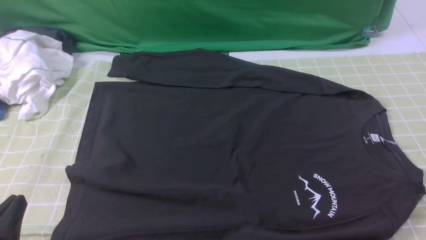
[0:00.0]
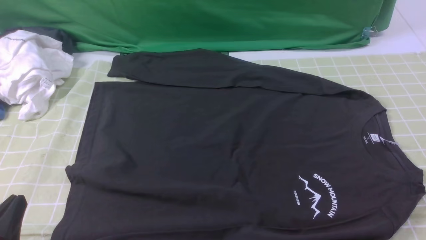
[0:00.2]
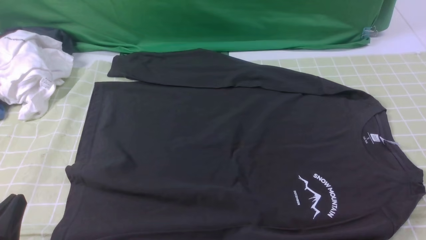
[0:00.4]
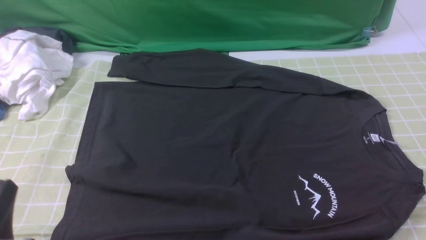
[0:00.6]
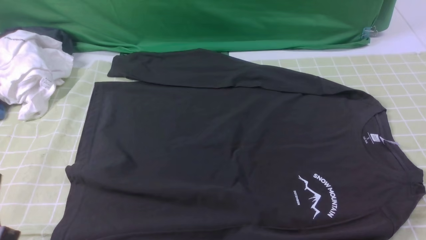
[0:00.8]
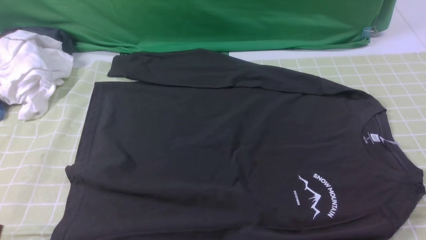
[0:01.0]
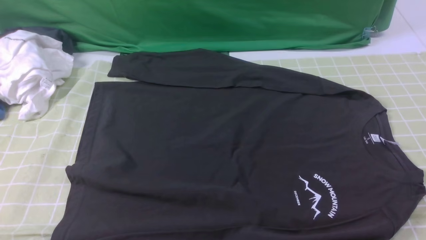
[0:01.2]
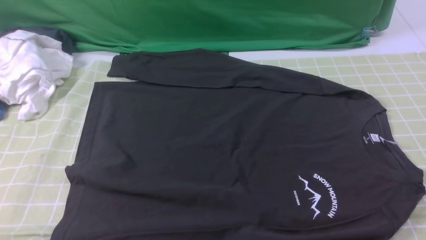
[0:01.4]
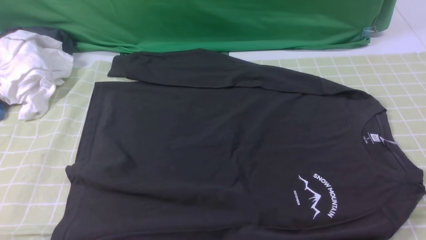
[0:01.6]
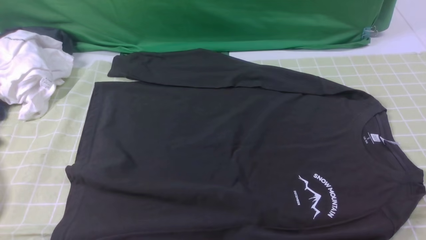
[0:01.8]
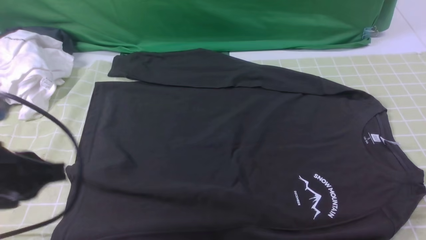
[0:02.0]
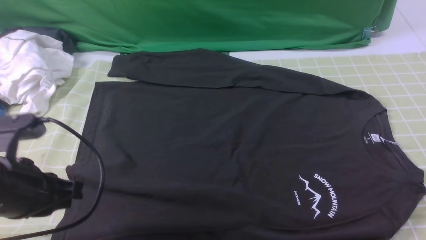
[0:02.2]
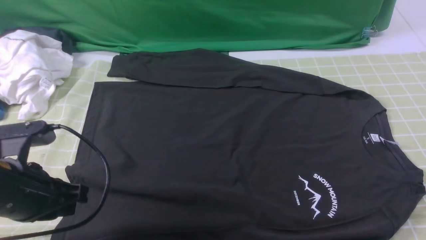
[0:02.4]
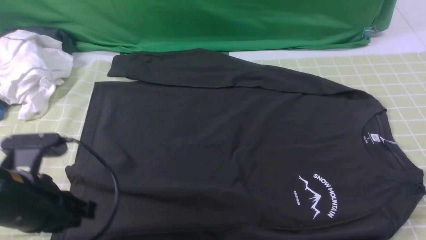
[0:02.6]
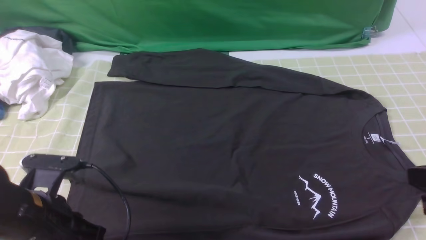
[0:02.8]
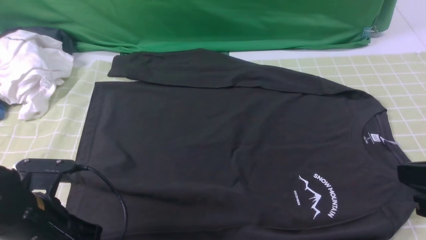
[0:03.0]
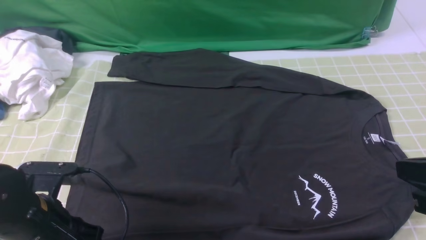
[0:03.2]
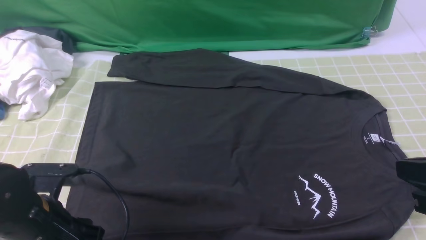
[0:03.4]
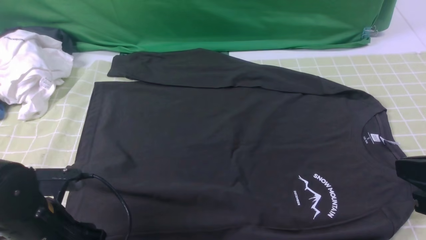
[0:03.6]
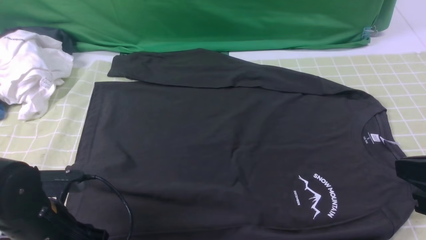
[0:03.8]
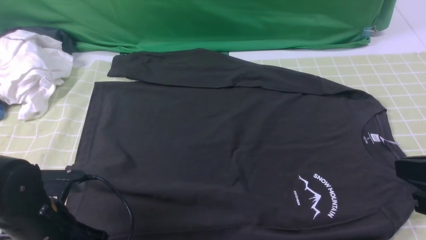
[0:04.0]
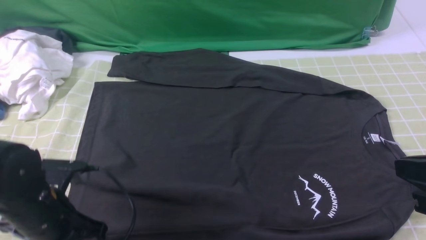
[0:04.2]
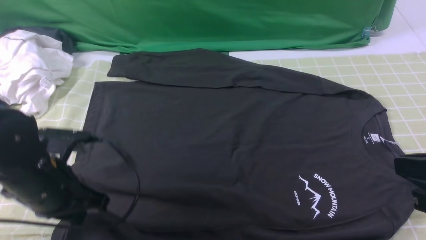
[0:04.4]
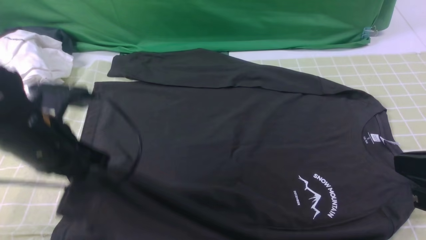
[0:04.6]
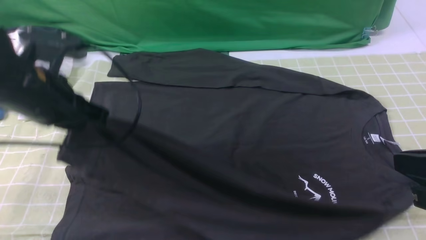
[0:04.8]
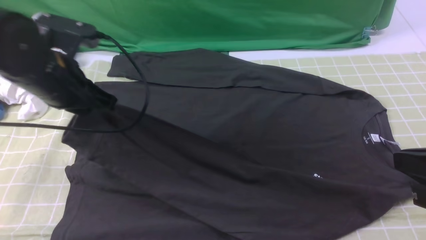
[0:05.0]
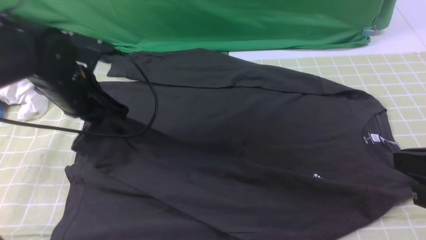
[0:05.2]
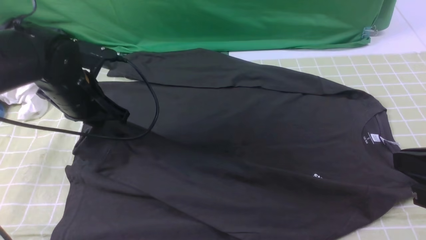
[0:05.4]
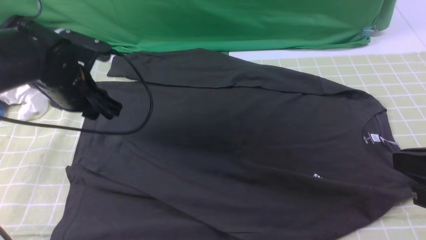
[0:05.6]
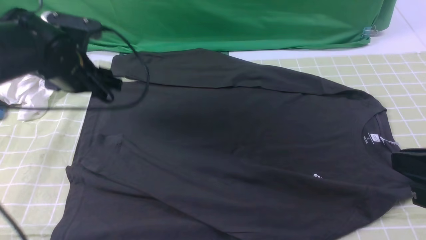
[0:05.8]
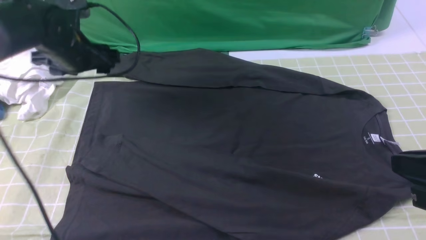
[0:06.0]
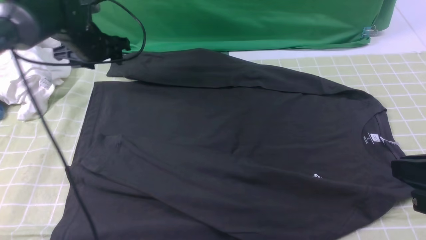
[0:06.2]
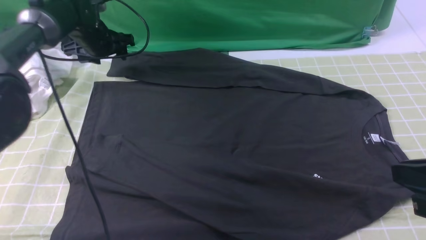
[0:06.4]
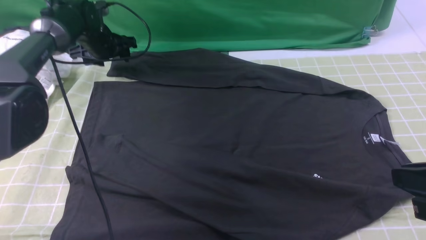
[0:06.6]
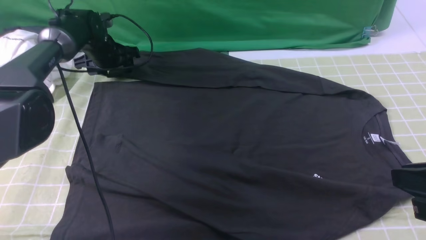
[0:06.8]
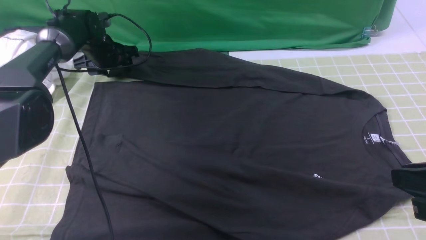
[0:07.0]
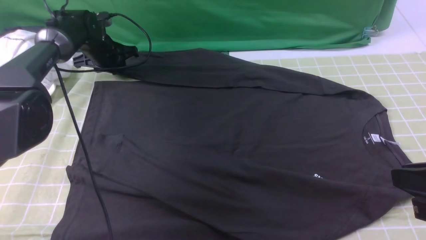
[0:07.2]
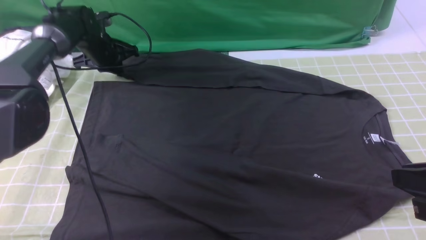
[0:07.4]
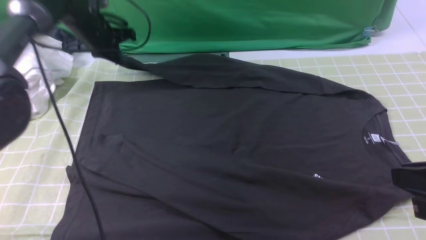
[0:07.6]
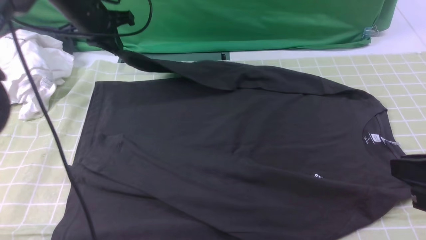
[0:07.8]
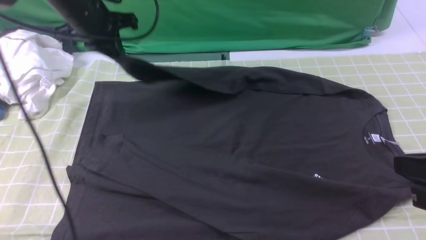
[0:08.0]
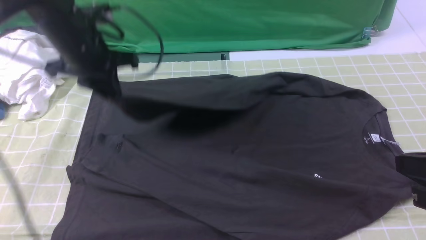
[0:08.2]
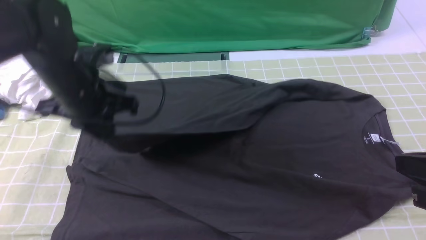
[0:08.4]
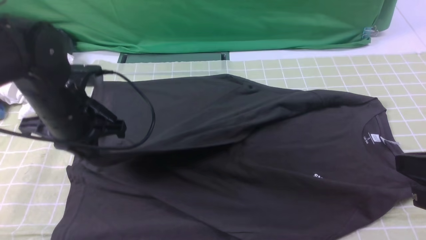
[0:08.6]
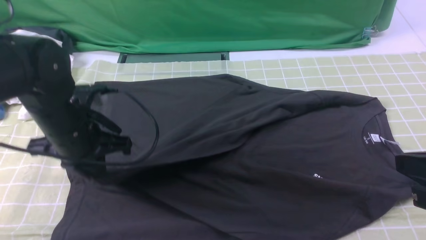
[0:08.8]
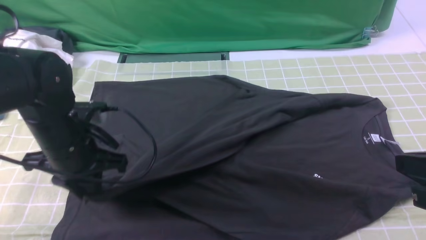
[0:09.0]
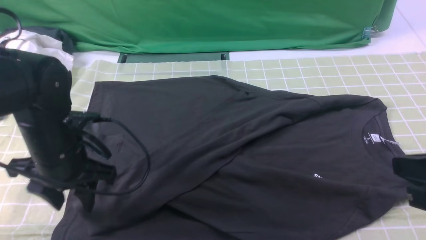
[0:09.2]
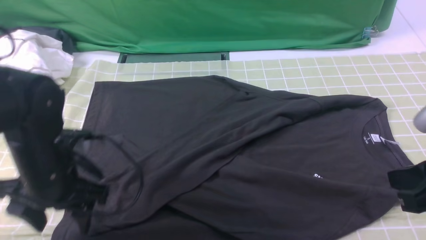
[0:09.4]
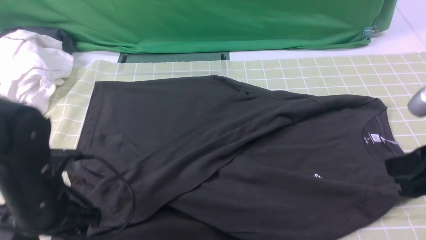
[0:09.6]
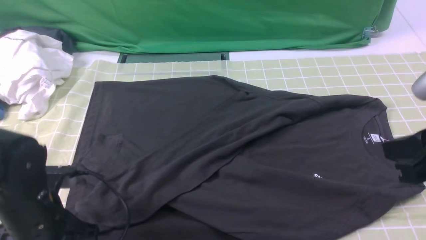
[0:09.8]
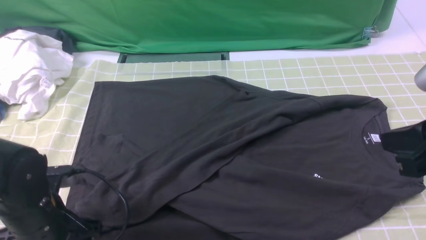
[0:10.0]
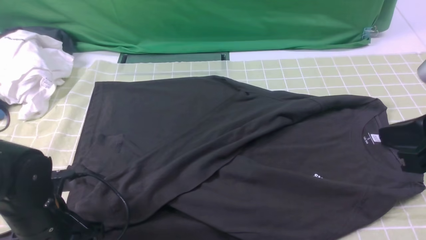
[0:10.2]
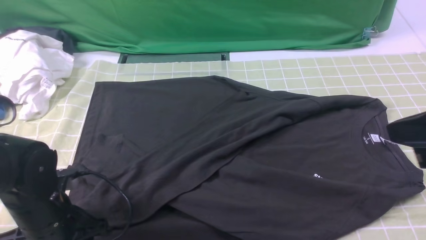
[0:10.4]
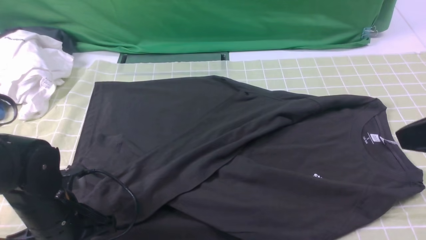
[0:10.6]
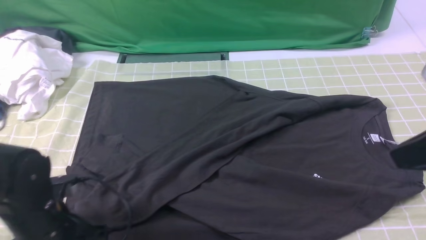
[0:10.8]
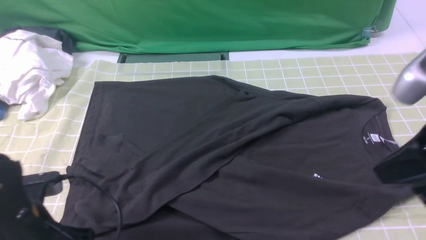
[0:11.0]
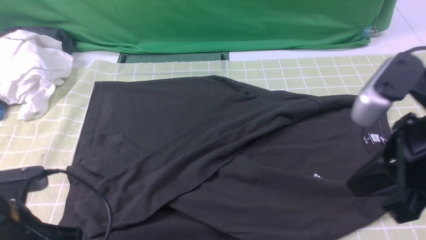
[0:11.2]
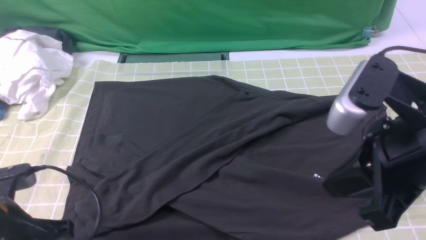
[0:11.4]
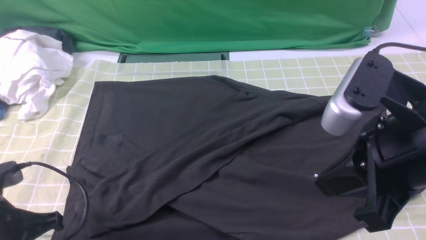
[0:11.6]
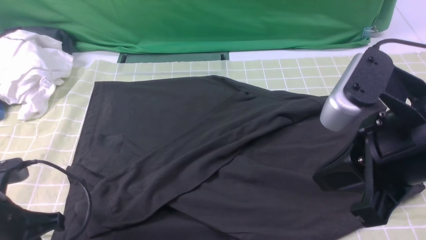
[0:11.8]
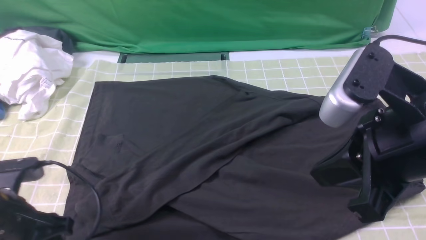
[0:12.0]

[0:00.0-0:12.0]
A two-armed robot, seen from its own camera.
Step, 0:00.0 to 0:04.0: use the left arm to clamp the cuff closest to it.
Step, 0:04.2 to 0:05.6: use the left arm to drag and place the cuff at the centered position on the left edge of the fabric.
Step, 0:05.8 to 0:07.2: use the left arm to clamp the cuff farthest from it.
Step, 0:07.4 to 0:09.2: use the left arm to drag and drop the cuff onto the cuff closest to the left arm.
0:00.0 to 0:01.6: The left gripper travels upward by some 15 cm.
0:01.6 to 0:03.0: The left gripper shifts some 20 cm downward and forward; the right gripper shifts about 10 cm upward, forward and to the left, and closes its fingers.
0:03.0 to 0:04.4: The left gripper moves forward, approximately 5 cm, and opens and closes again.
0:04.4 to 0:06.0: The left gripper is displaced forward by about 20 cm, and opens its fingers.
0:06.0 to 0:07.6: The left gripper heads forward, covering roughly 10 cm, and closes its fingers.
0:07.6 to 0:09.0: The left gripper shifts about 25 cm backward.
0:09.0 to 0:10.4: The right gripper is displaced upward by some 5 cm. Meanwhile the left gripper shifts roughly 10 cm backward and downward.
0:10.4 to 0:12.0: The left gripper ends up some 5 cm from where it was, and closes and opens again, while the right gripper travels to the left by about 5 cm.

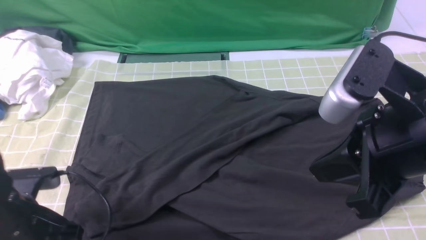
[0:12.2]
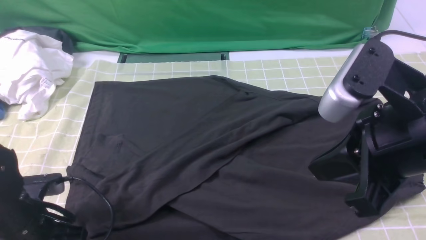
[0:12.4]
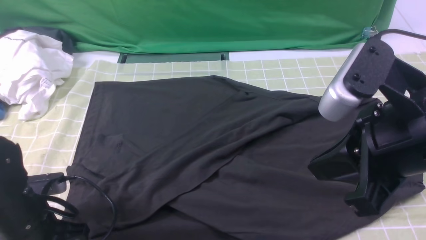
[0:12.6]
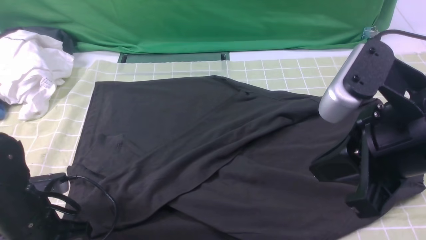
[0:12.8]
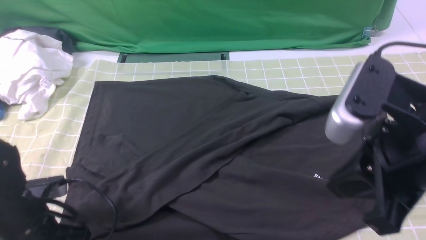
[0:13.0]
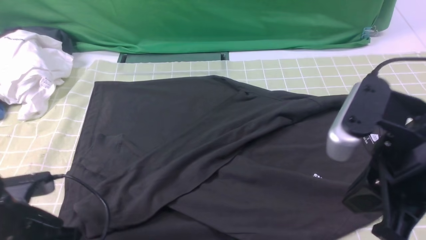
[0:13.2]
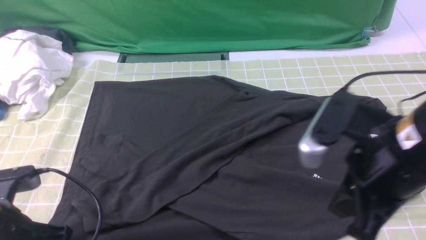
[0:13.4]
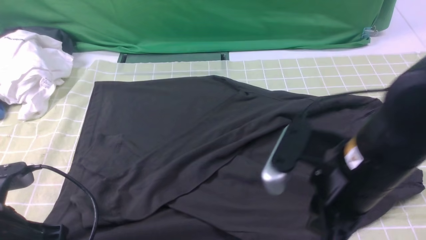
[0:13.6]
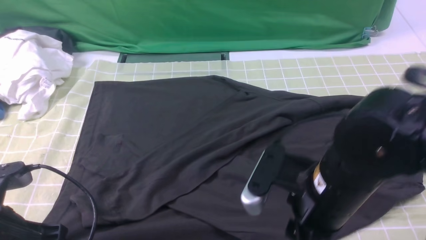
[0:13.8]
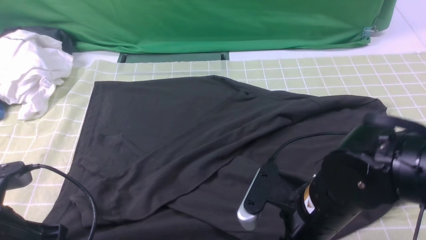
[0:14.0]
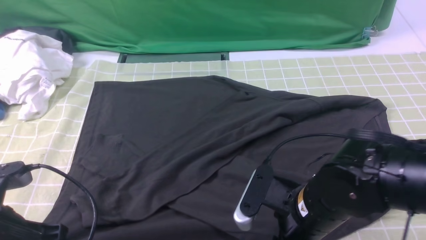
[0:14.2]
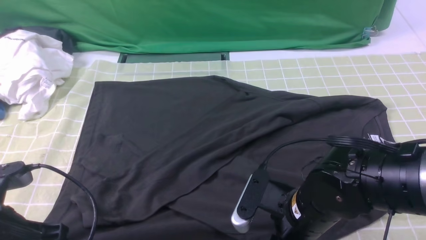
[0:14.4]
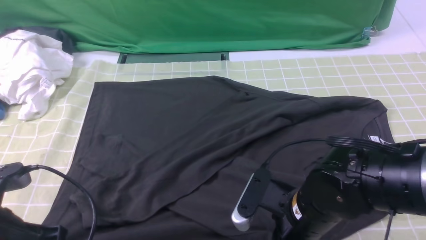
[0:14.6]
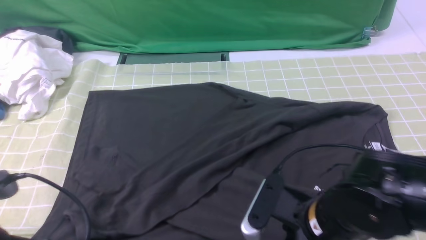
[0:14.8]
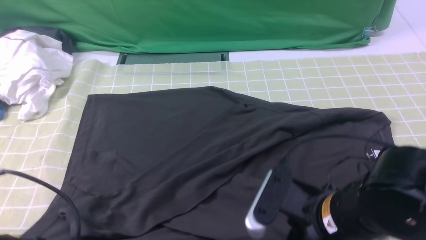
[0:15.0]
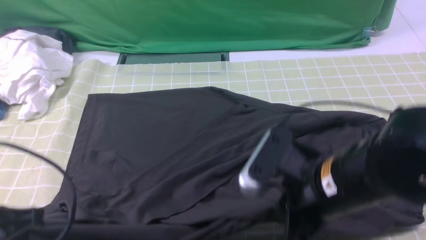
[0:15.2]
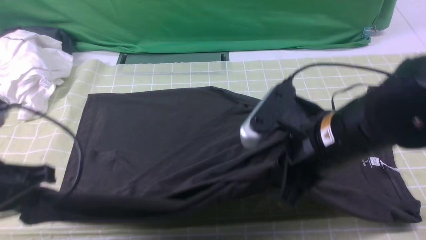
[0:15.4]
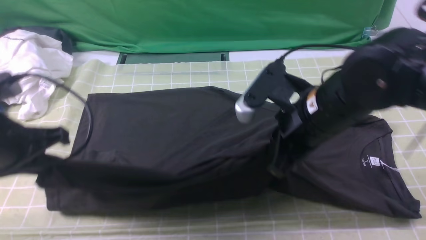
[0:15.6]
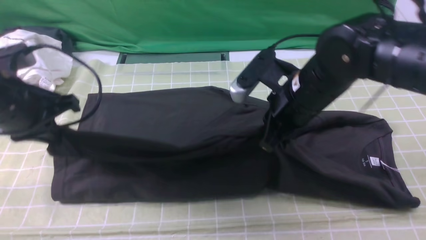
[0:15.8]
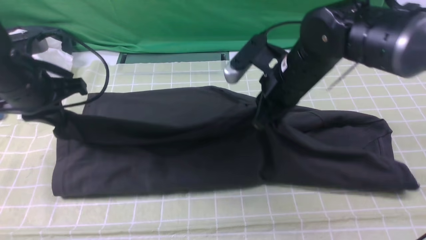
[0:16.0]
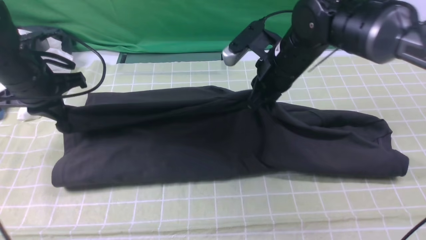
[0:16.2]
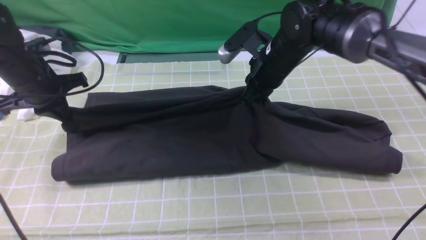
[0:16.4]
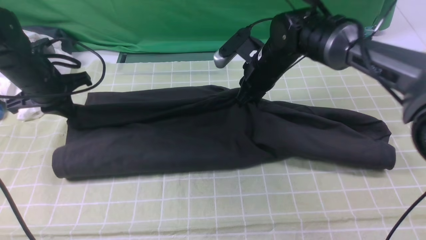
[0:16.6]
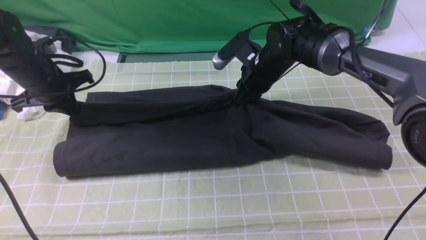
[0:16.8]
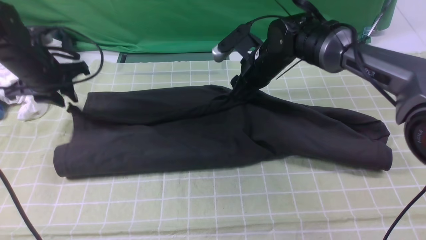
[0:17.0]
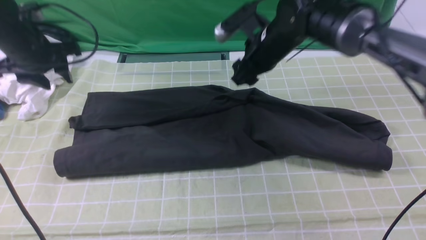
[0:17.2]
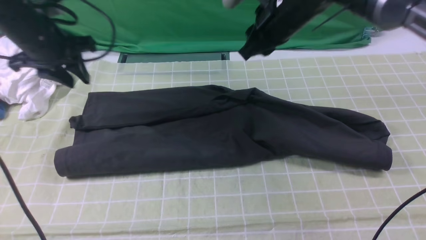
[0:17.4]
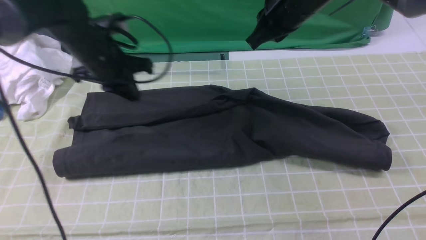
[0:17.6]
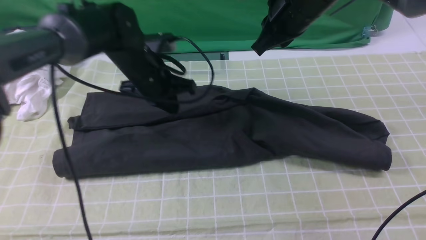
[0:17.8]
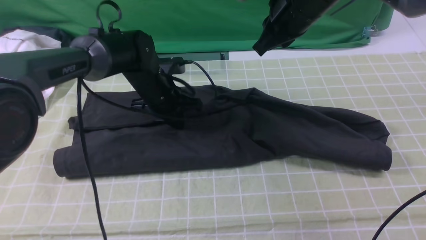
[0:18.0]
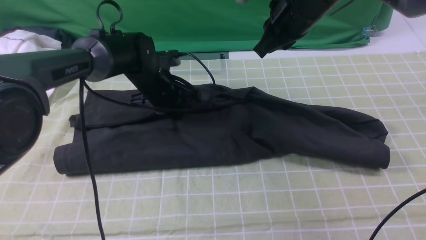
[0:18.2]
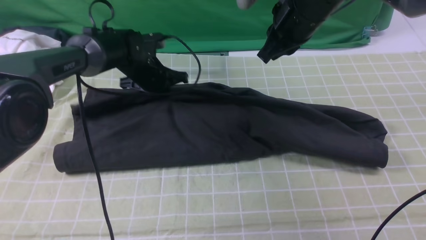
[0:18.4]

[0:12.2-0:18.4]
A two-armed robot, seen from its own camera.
Step, 0:12.2 to 0:14.4: use both arms simultaneously to clamp the lower edge of the clothing fabric.
0:12.2 to 0:13.8: The right gripper heads downward and to the left, covering roughly 15 cm, and opens up. The left gripper goes about 5 cm upward, and closes its fingers.
0:13.8 to 0:15.4: The left gripper goes roughly 5 cm upward, while the right gripper shifts by roughly 5 cm, and closes its fingers.
0:15.4 to 0:16.8: The grippers both shift forward by some 25 cm.
0:16.8 to 0:18.4: The right gripper goes approximately 15 cm upward and backward, and closes its fingers. The left gripper shifts roughly 15 cm to the right and forward.
